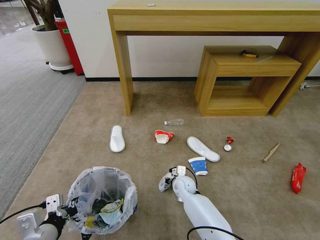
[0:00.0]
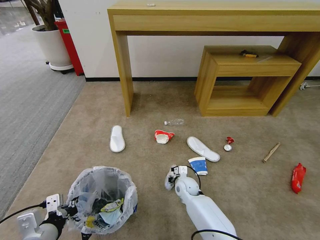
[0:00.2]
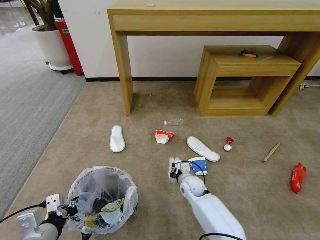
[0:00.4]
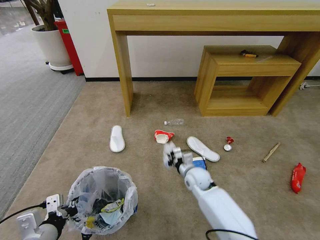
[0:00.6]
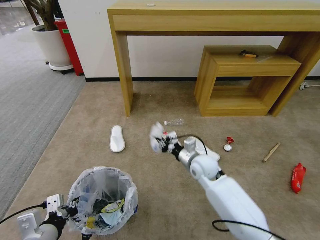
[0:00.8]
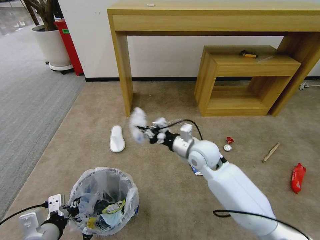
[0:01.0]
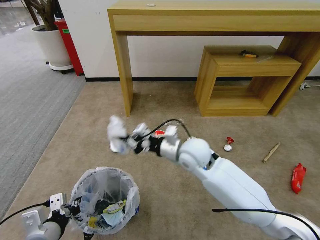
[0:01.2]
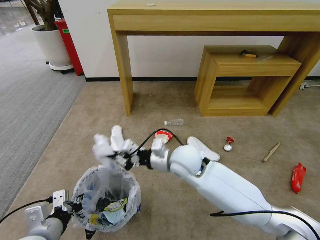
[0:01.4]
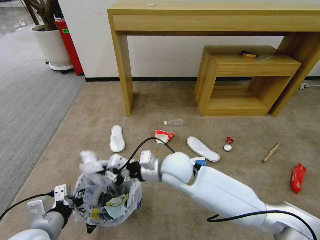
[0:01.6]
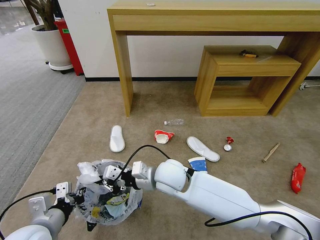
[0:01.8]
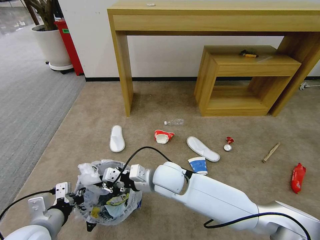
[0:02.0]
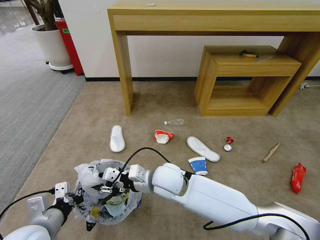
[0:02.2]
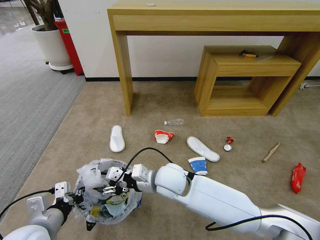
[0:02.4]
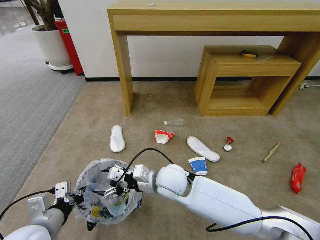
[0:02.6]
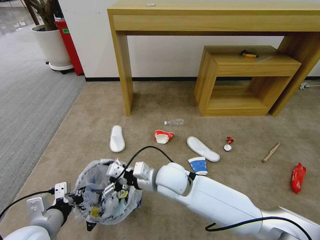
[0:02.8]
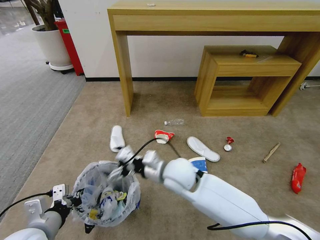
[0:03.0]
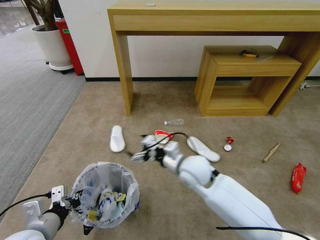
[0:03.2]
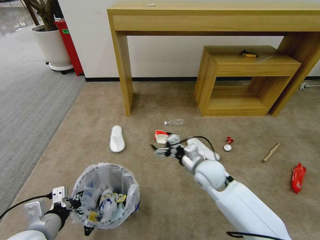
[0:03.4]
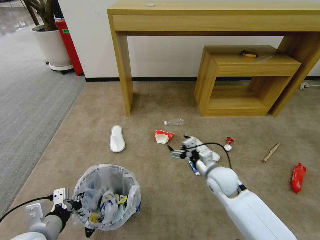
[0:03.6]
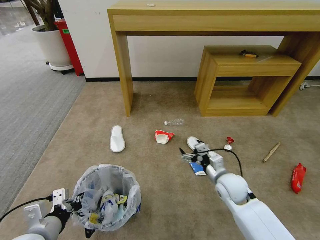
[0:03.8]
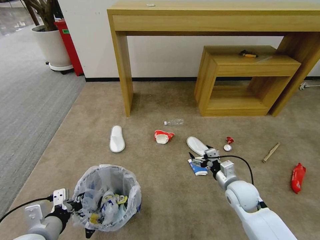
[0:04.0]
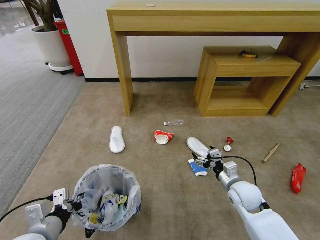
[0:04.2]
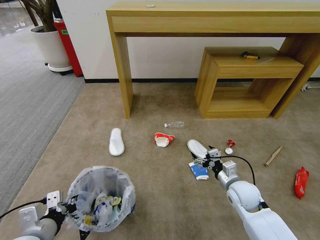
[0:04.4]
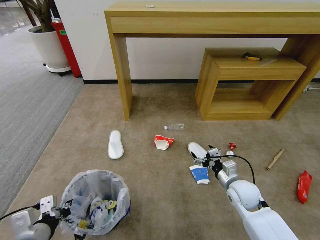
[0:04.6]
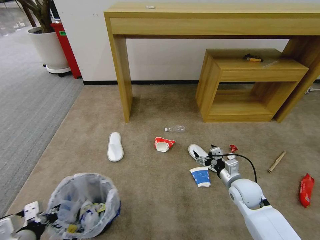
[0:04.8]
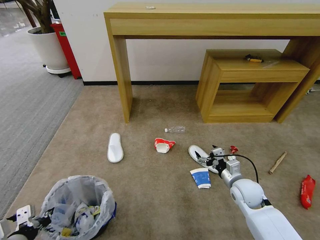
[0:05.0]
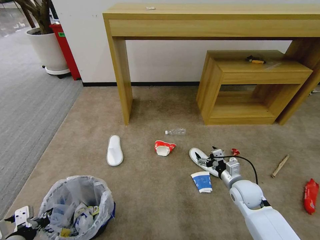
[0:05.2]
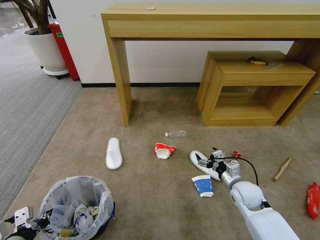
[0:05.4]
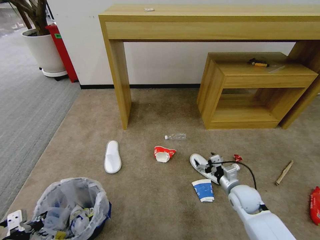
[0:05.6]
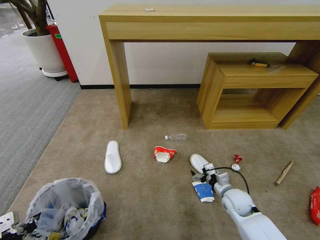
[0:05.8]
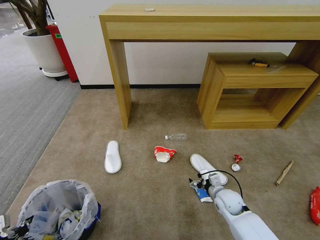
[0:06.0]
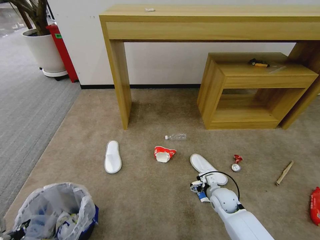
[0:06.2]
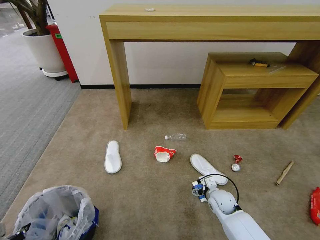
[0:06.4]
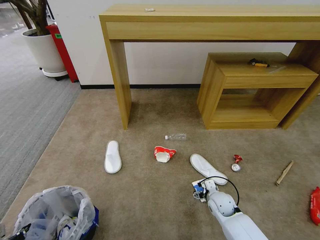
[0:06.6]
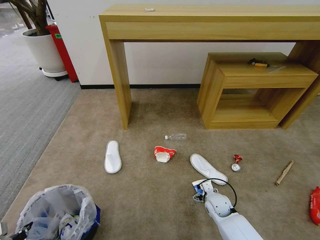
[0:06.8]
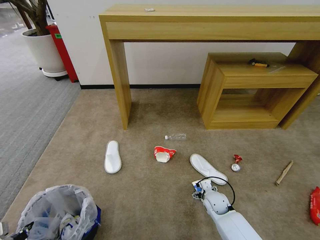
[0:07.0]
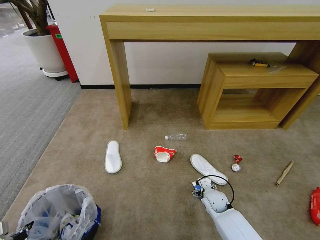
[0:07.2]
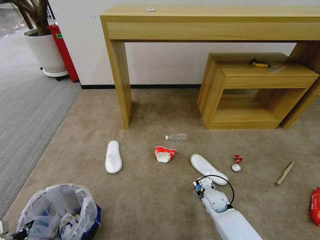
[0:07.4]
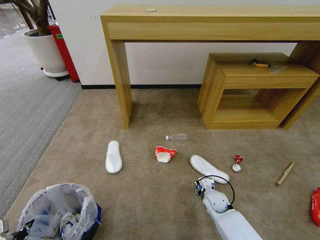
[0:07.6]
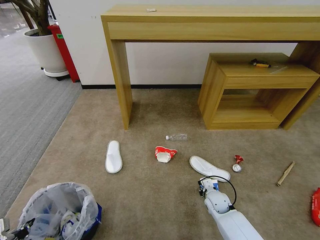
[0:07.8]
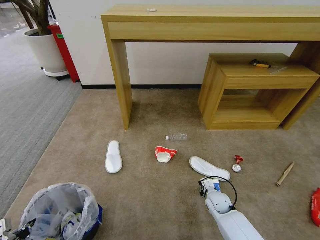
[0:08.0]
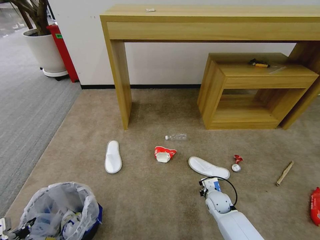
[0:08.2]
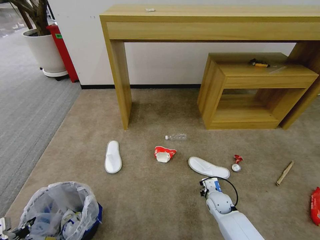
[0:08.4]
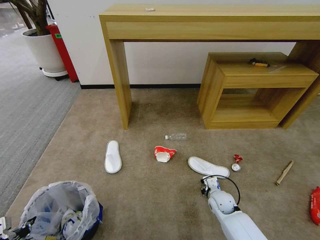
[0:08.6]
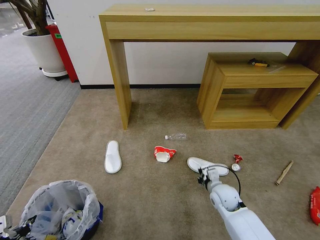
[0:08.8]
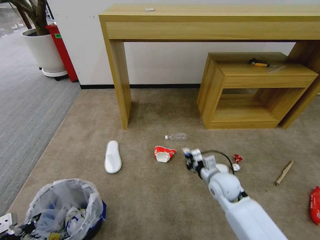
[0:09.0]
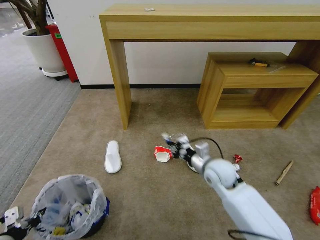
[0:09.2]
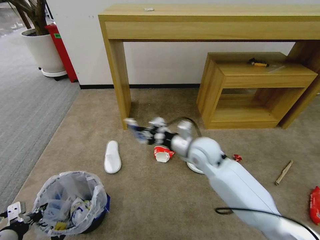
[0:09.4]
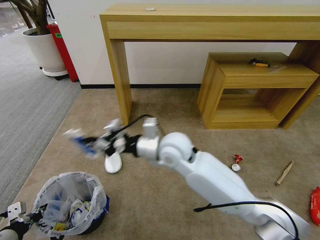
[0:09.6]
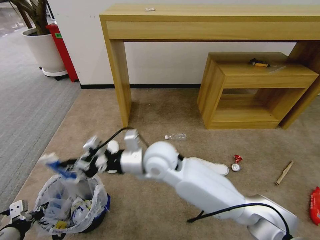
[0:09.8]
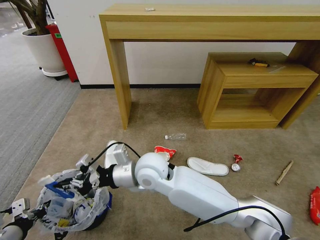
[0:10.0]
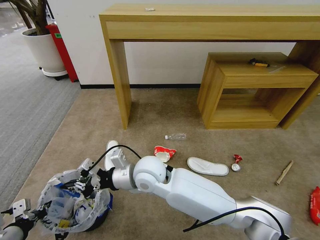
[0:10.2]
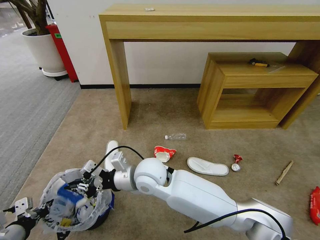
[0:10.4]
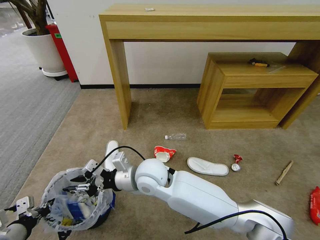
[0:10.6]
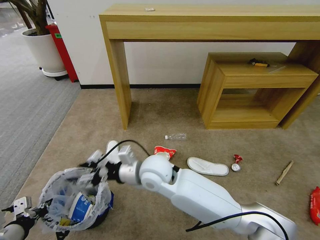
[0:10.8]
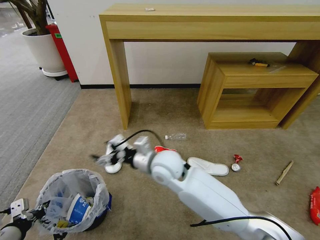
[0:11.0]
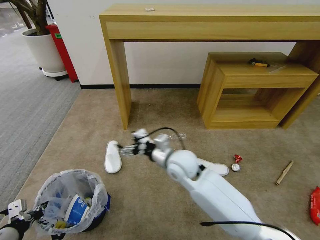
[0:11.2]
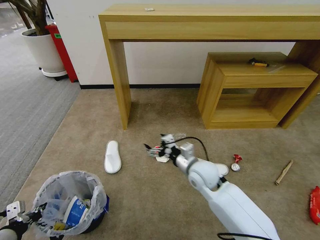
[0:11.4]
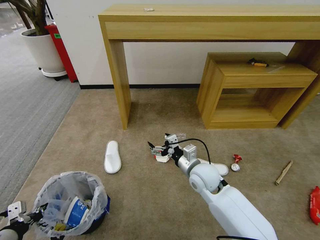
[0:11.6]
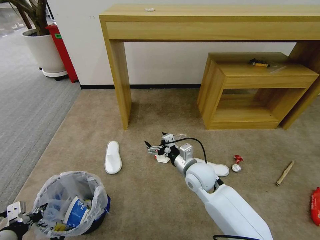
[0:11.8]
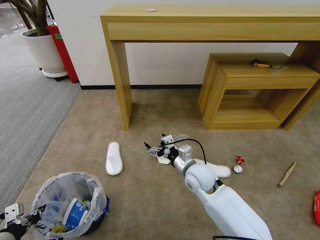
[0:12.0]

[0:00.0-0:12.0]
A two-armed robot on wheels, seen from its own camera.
Task of the whole recording: Pick up the trash bin and place the garbage on the floor into it.
0:00.0 to 0:01.6: The right gripper is displaced upward by approximately 25 cm, and closes.
0:01.6 to 0:03.0: The right gripper opens its fingers.
0:03.0 to 0:04.4: The right gripper moves to the right and downward, some 25 cm.
0:04.4 to 0:06.0: The right gripper goes some 10 cm downward; the left gripper heads to the left and backward, covering about 10 cm.
0:06.0 to 0:07.6: The right gripper travels downward by some 5 cm, and closes its fingers.
0:07.6 to 0:09.0: The right gripper shifts about 15 cm upward, and closes.
0:09.0 to 0:10.4: The right gripper is displaced to the left and upward by roughly 30 cm.
0:10.4 to 0:12.0: The right gripper shifts approximately 20 cm to the right and downward, and opens up.

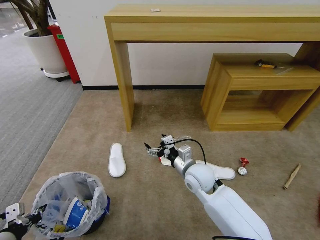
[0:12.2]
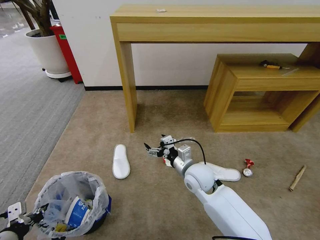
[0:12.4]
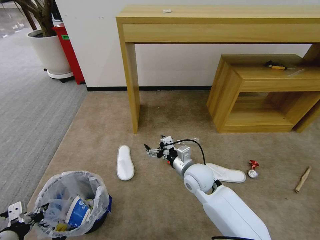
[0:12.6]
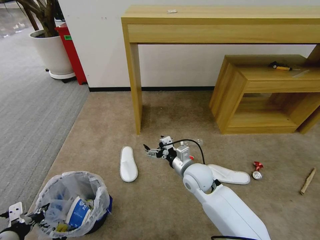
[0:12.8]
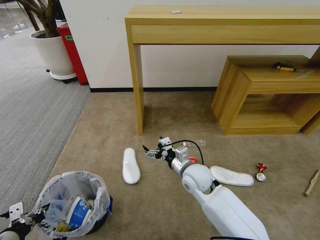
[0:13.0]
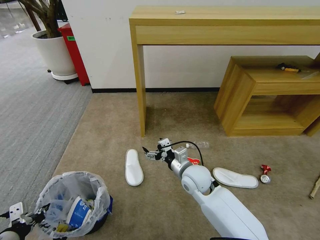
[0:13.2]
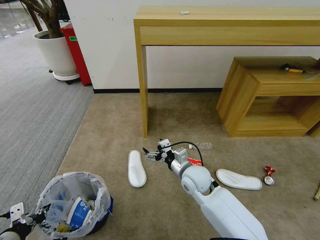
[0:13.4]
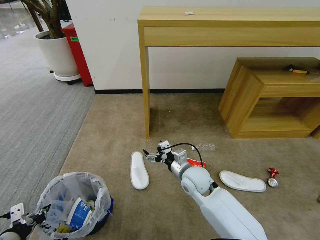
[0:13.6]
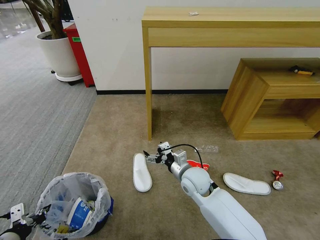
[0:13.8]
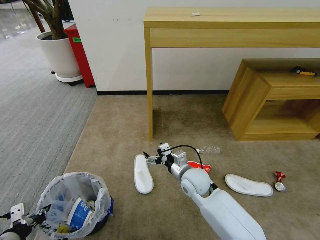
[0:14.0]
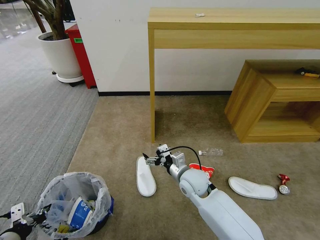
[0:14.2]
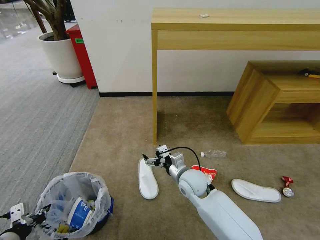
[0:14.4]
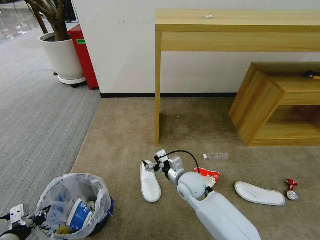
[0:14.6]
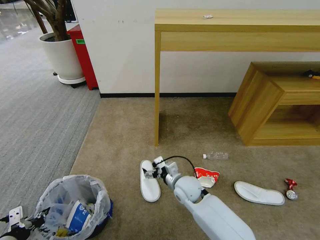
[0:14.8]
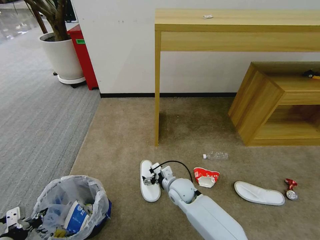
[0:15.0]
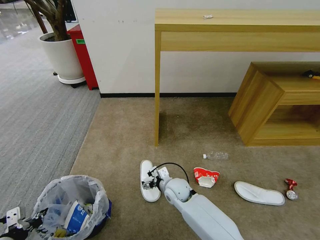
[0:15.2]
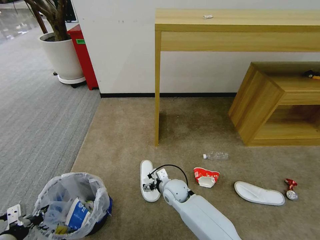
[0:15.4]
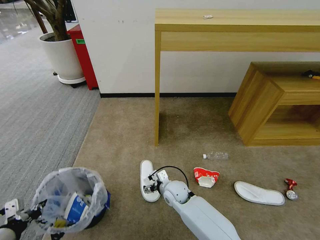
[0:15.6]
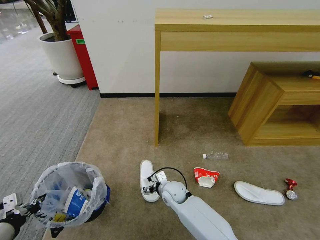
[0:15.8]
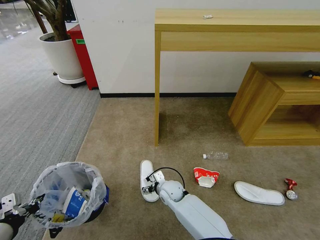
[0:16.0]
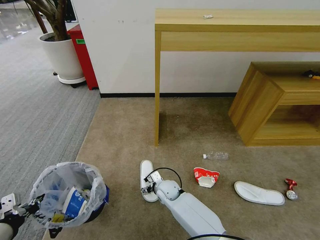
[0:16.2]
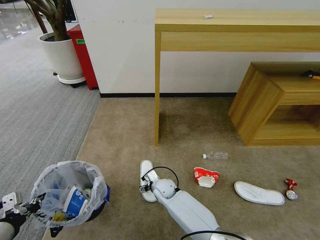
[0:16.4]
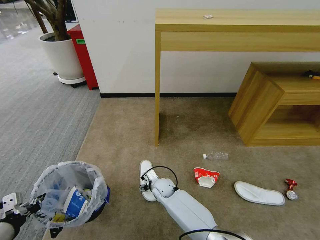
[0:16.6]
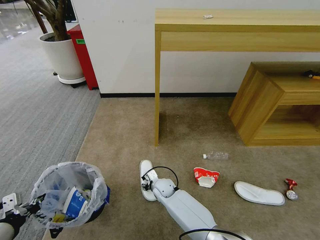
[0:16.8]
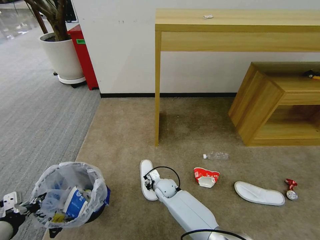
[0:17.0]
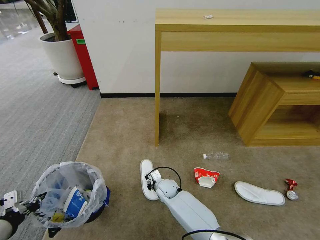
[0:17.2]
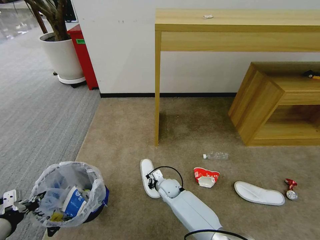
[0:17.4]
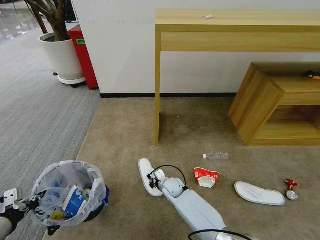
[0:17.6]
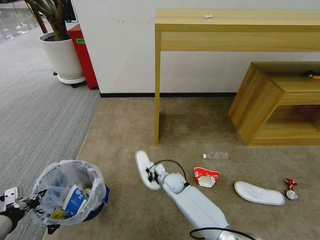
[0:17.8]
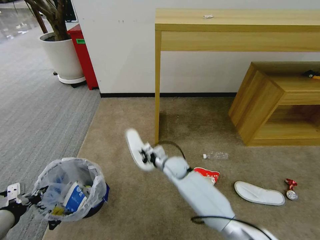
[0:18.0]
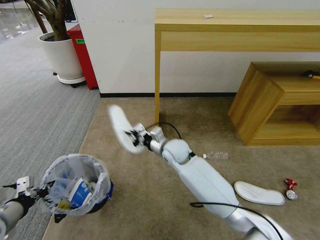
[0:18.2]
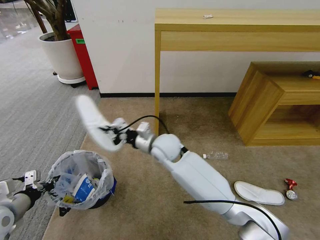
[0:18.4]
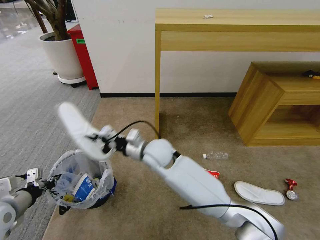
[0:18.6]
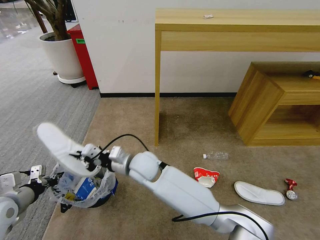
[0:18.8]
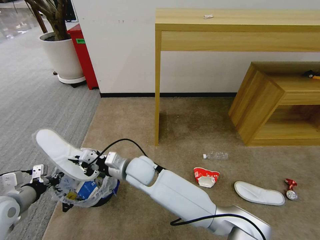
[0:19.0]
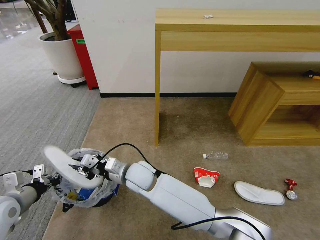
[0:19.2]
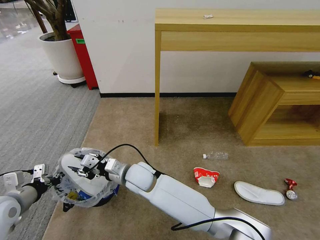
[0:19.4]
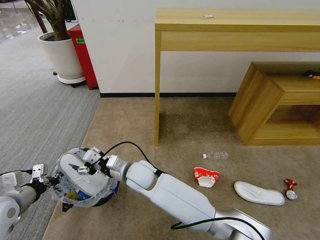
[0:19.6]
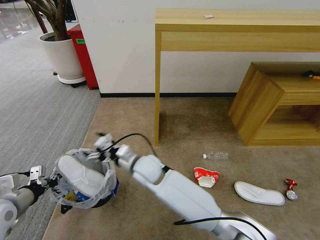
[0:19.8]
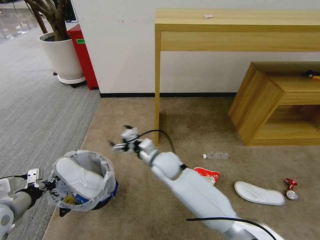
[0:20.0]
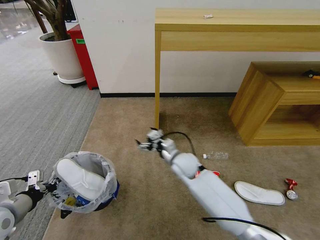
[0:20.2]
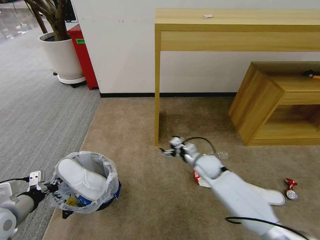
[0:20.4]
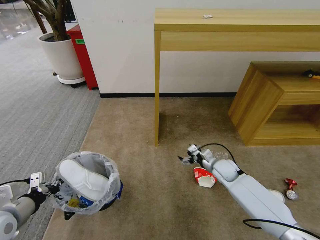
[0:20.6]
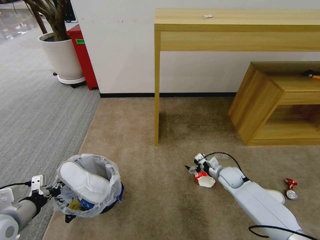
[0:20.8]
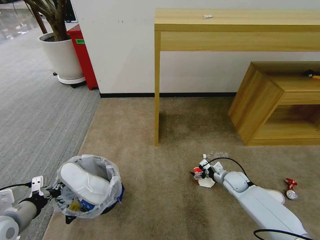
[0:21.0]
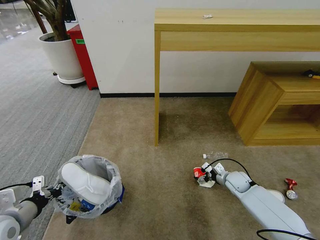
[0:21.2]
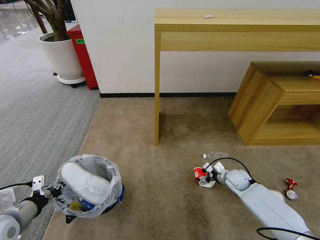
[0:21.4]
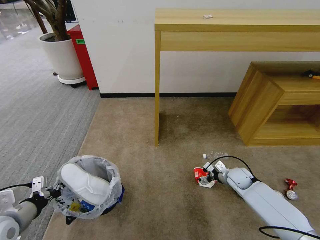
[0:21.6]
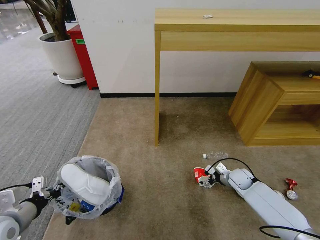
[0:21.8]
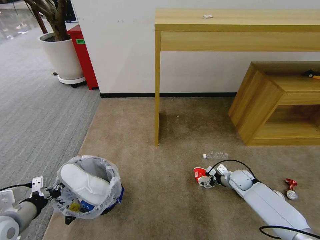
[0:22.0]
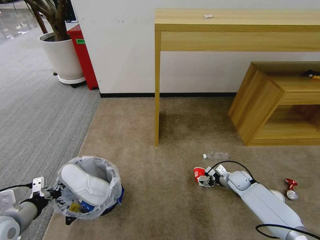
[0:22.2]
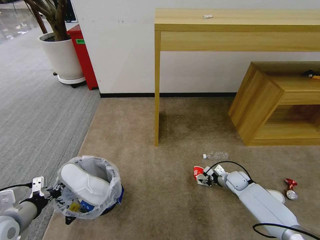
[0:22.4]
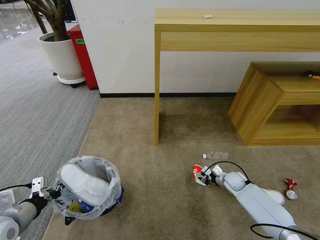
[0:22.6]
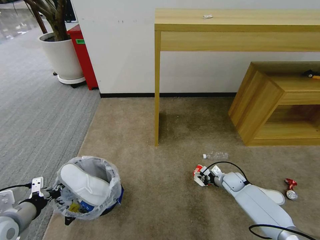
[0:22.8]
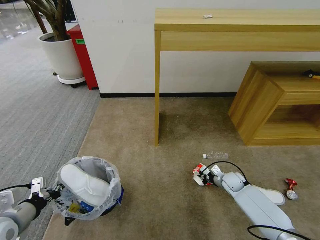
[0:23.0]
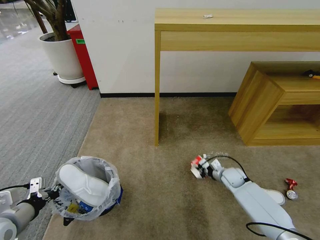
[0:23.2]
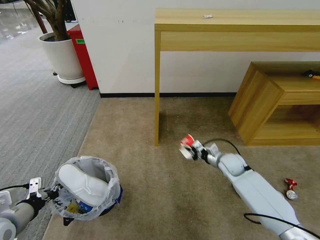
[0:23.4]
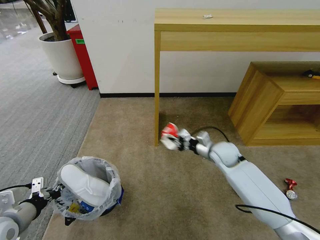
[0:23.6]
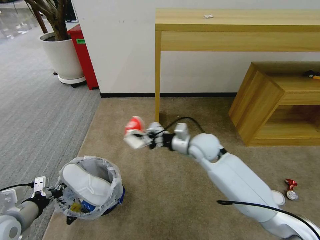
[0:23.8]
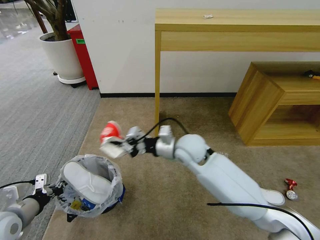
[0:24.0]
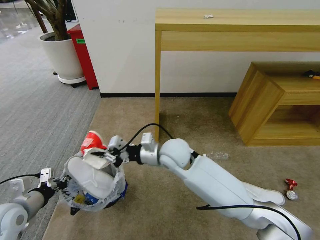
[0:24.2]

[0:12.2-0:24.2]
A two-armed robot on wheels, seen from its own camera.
Task of the whole recording: Pick up the trash bin and place the garbage on the floor into it.
0:13.8 to 0:15.2: The right gripper goes about 10 cm downward and to the left.
0:15.2 to 0:16.6: The right gripper moves downward and to the left, approximately 10 cm.
0:16.6 to 0:18.2: The left gripper moves forward, roughly 5 cm; the right gripper travels upward by roughly 20 cm, and closes up.
0:18.2 to 0:19.8: The right gripper heads to the left and backward, covering roughly 10 cm, and opens its fingers.
0:19.8 to 0:21.2: The right gripper moves to the right and downward, about 40 cm.
0:21.2 to 0:22.6: The right gripper closes up.
0:22.6 to 0:24.2: The right gripper travels to the left and upward by some 40 cm.
